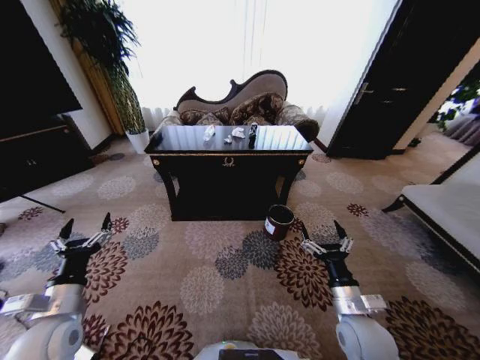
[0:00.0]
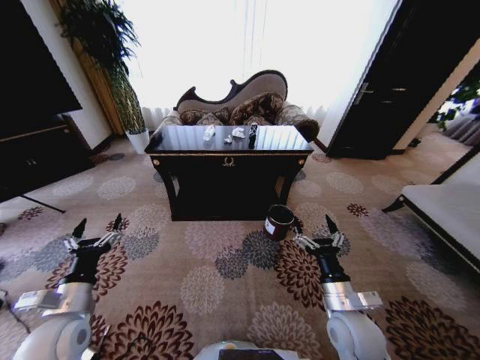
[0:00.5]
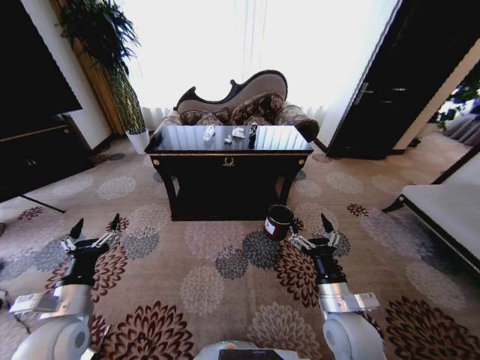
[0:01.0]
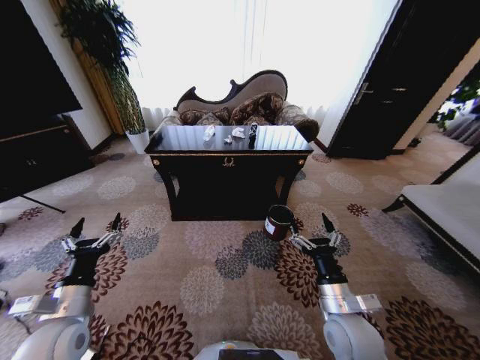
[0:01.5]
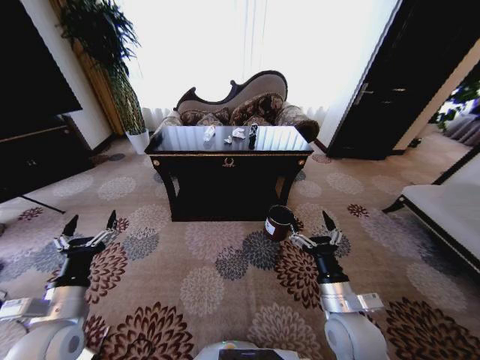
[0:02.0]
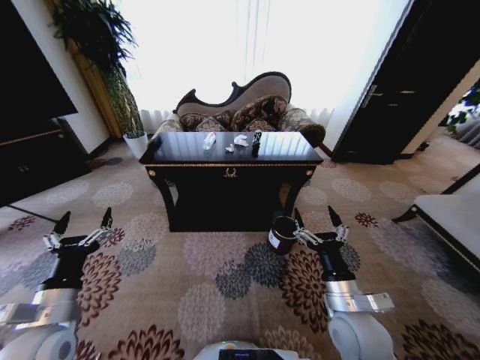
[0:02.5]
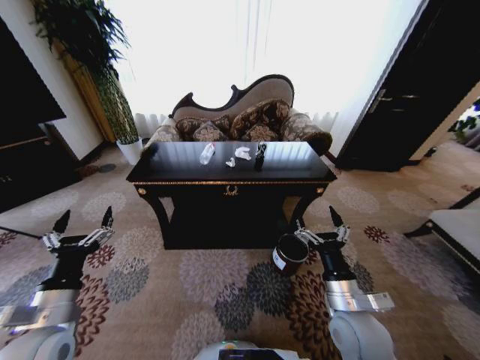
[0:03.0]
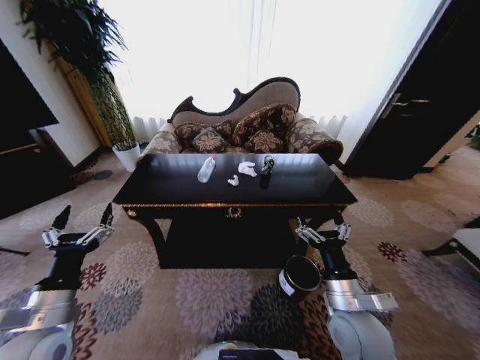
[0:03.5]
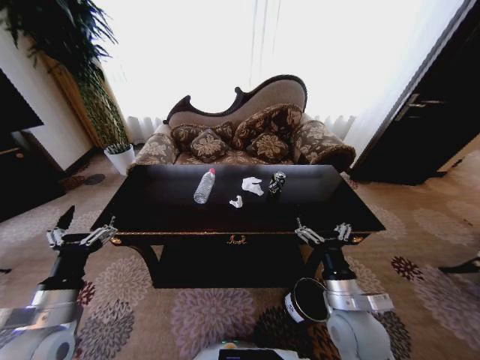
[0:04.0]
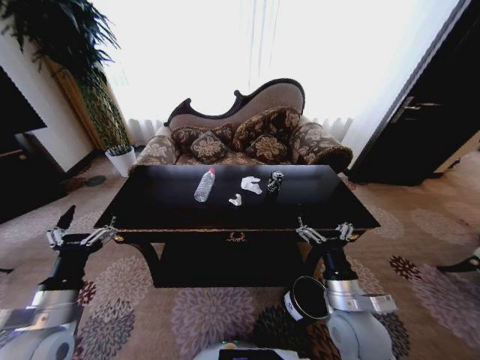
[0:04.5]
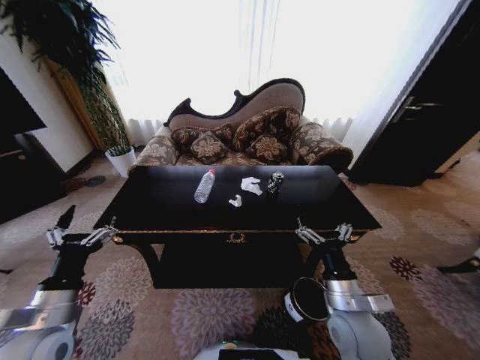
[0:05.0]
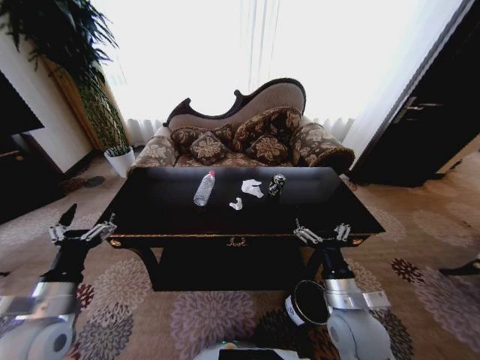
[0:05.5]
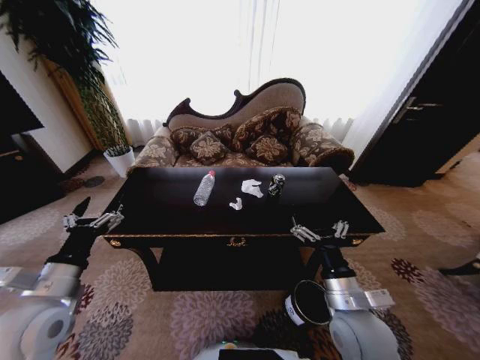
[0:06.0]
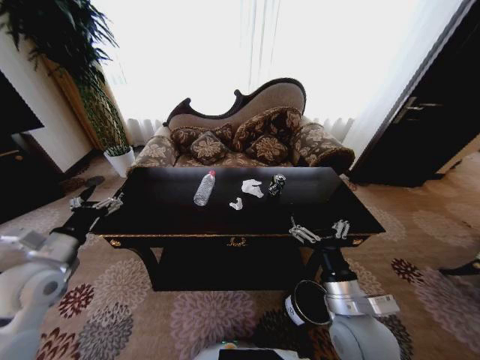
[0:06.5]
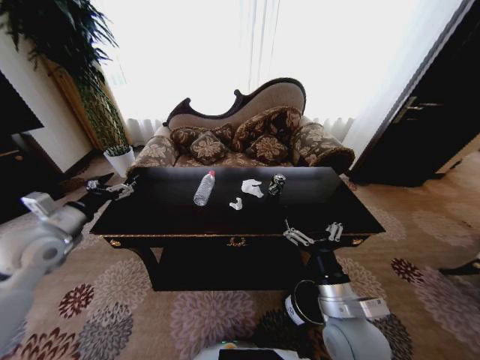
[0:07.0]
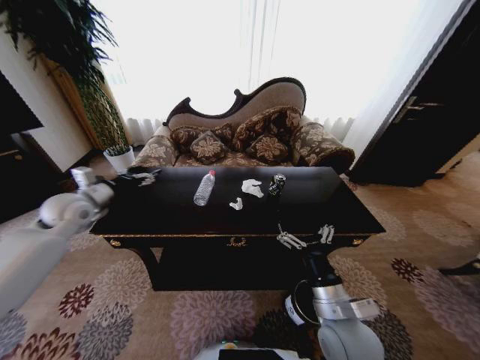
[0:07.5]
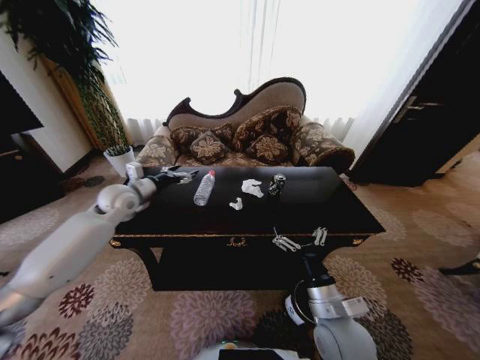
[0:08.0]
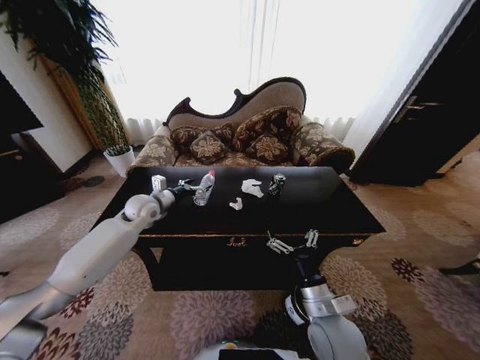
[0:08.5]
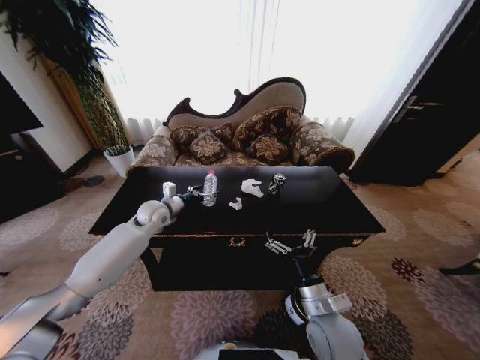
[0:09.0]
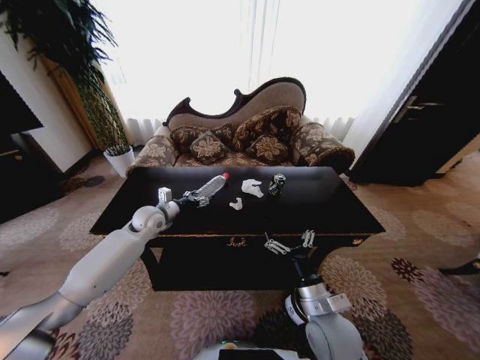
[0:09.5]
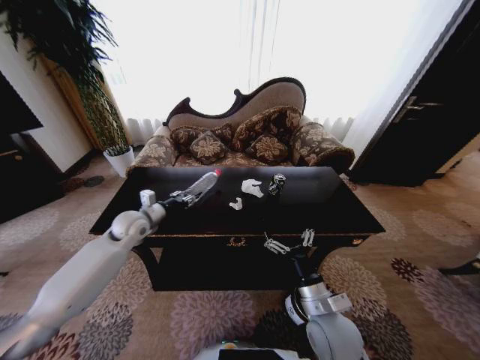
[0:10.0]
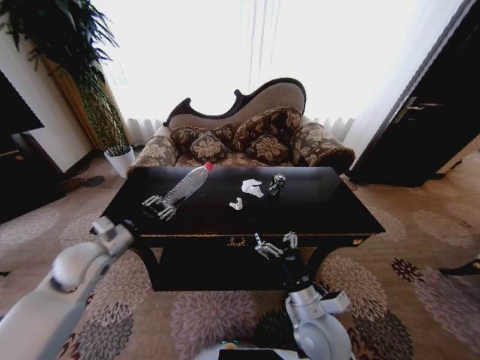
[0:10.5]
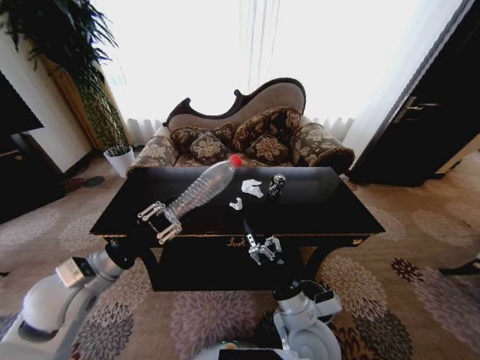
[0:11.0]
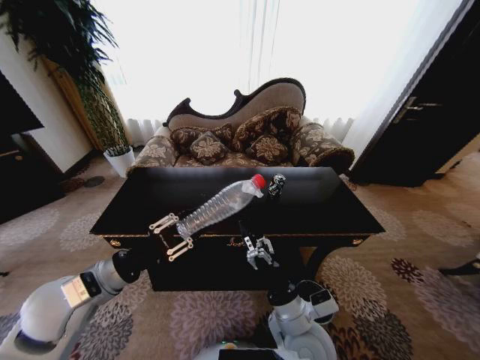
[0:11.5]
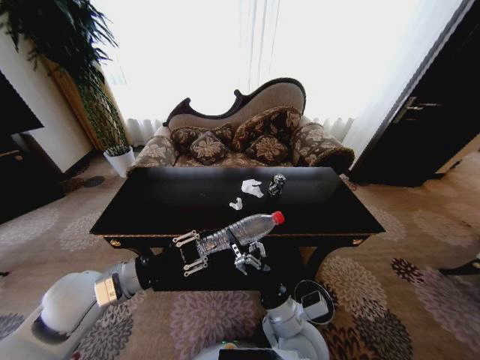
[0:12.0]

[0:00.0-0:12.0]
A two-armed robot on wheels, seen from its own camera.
Task of the whole recording: Move to the front of the table and place the trash on the table into the trash bin.
0:04.0 to 0:06.0: The grippers stay close to where they were, moving slightly.
0:06.0 to 0:08.0: The left gripper is displaced forward by some 30 cm.
0:08.0 to 0:10.0: The left gripper moves downward, roughly 10 cm, and closes its fingers.
0:10.0 to 0:12.0: The right gripper heads to the left, covering some 5 cm. The left gripper heads backward, covering approximately 20 cm.

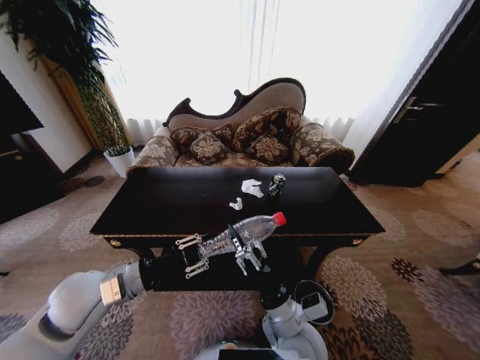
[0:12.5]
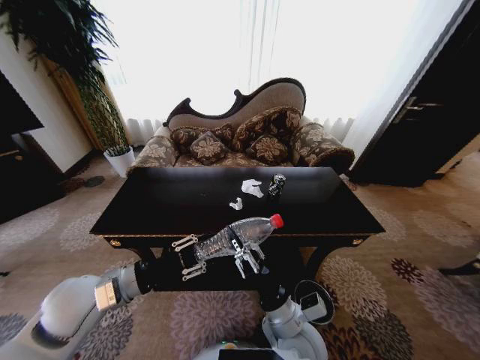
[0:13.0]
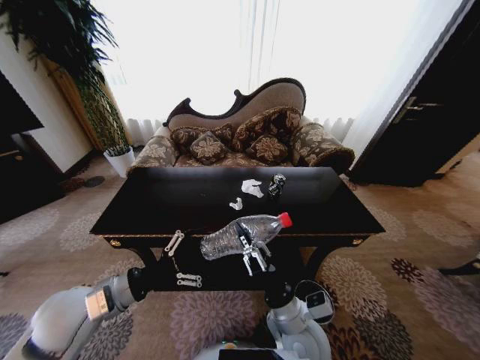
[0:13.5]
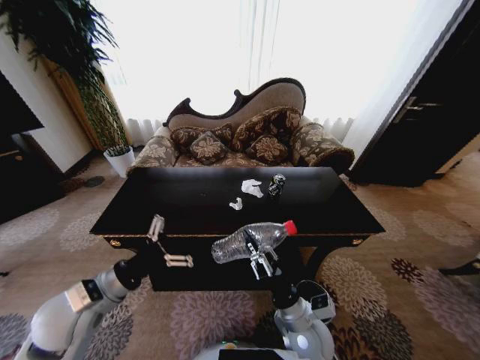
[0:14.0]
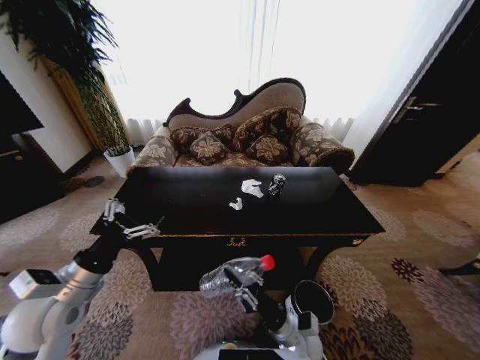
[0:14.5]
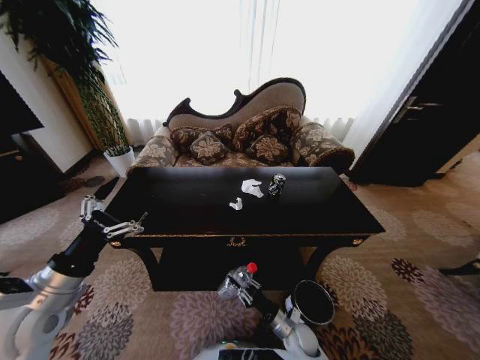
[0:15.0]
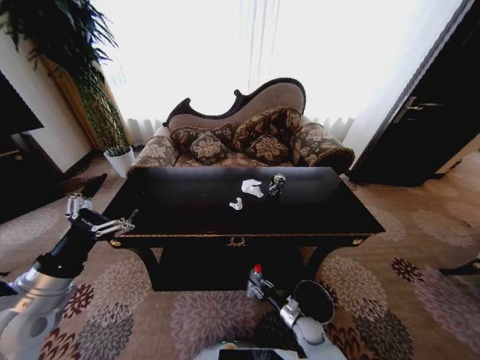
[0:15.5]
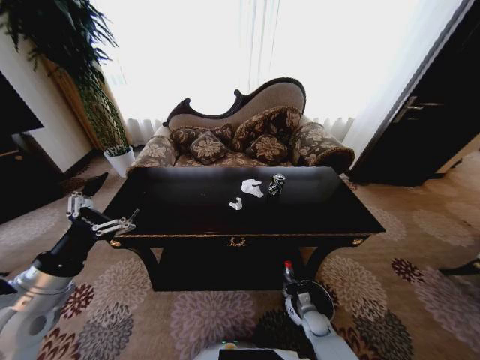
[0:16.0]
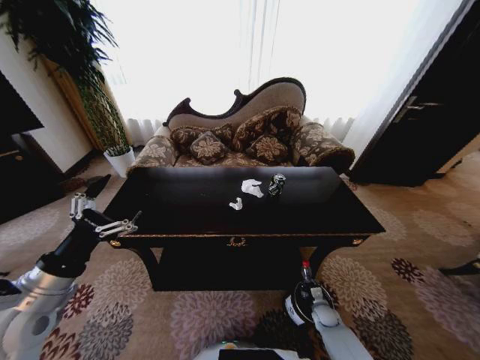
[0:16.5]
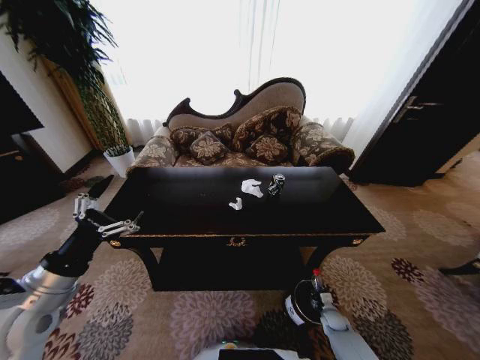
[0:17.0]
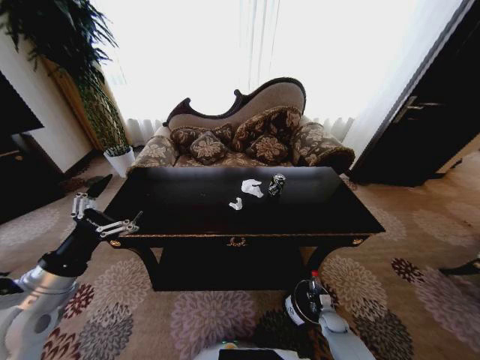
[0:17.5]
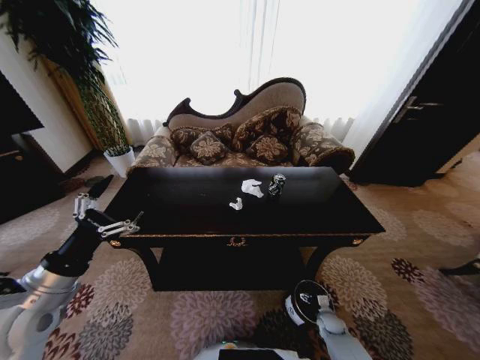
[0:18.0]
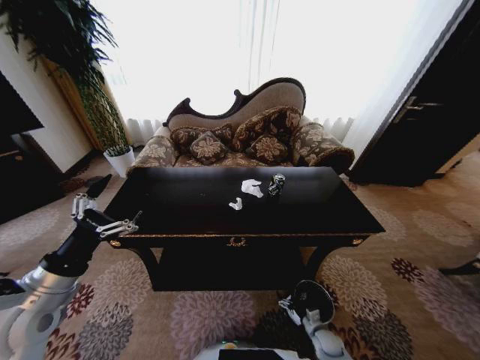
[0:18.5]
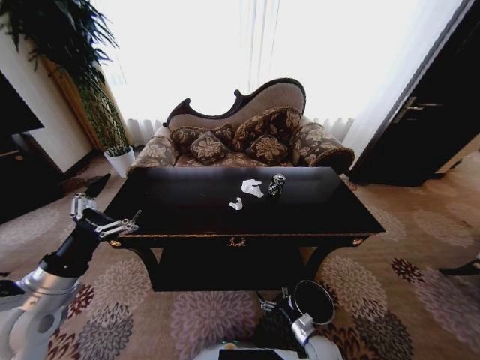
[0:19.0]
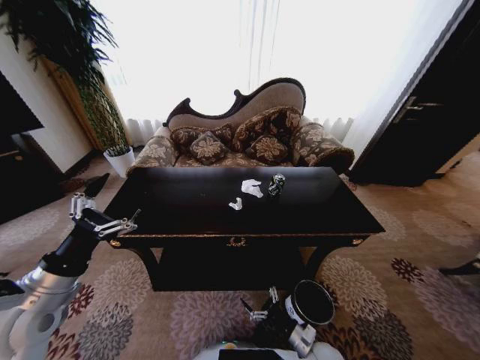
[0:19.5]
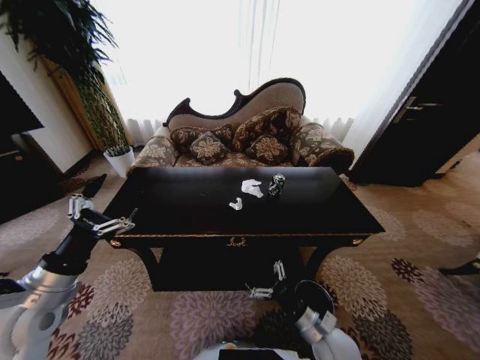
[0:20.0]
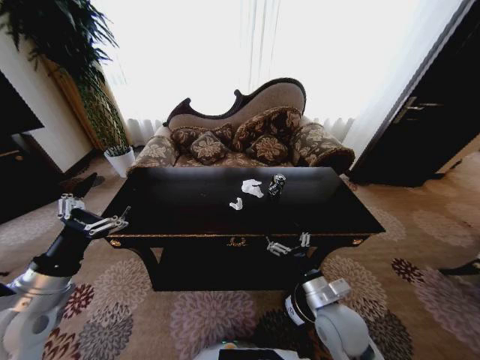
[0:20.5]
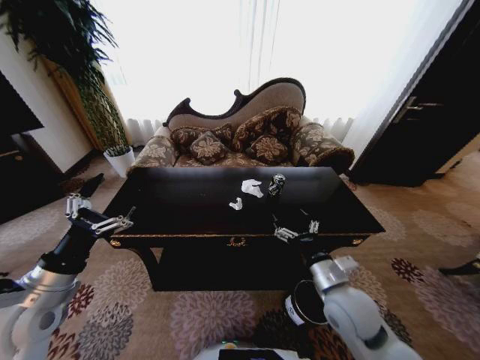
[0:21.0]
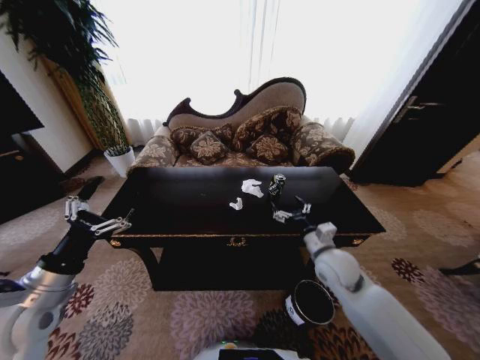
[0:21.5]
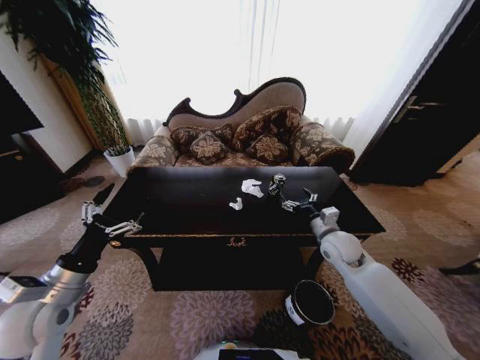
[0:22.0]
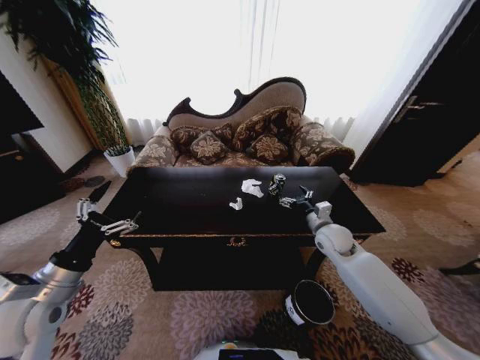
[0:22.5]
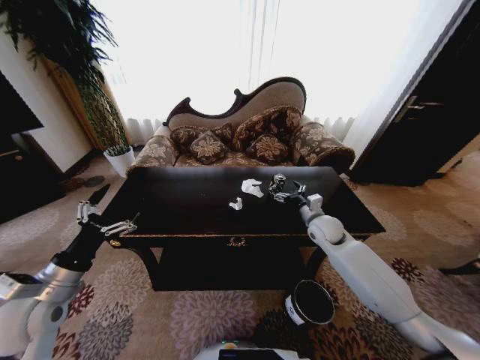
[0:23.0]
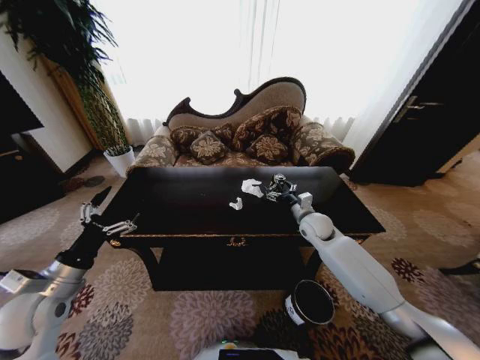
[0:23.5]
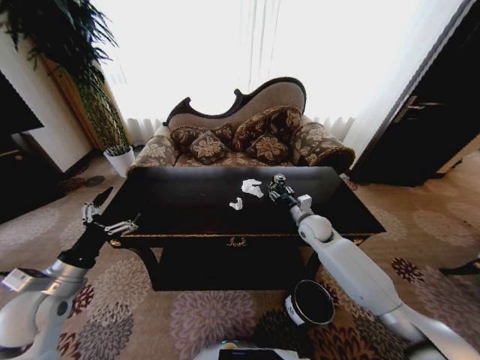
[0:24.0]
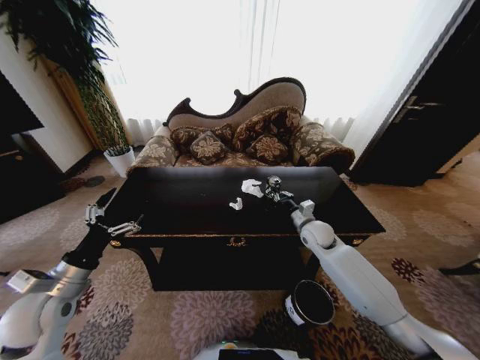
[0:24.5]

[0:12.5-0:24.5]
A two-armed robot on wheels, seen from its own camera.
Task of the whole recording: Move to the front of the table and place the trash on the table into the trash bin.
0:12.5 to 0:14.5: The left gripper moves to the left, about 5 cm, and opens its fingers; the right gripper travels downward by roughly 10 cm, and closes its fingers.
0:14.5 to 0:16.5: The right gripper travels to the right, downward and forward by roughly 30 cm.
0:16.5 to 0:18.5: The right gripper shifts roughly 10 cm backward, and opens up.
0:18.5 to 0:20.5: The right gripper goes some 30 cm upward.
0:20.5 to 0:22.5: The right gripper heads forward, covering some 20 cm.
0:22.5 to 0:24.5: The right gripper ends up about 5 cm from where it was, and closes up.

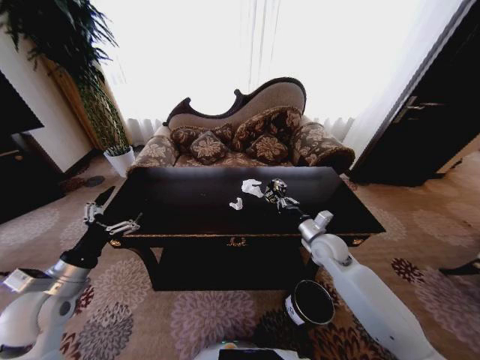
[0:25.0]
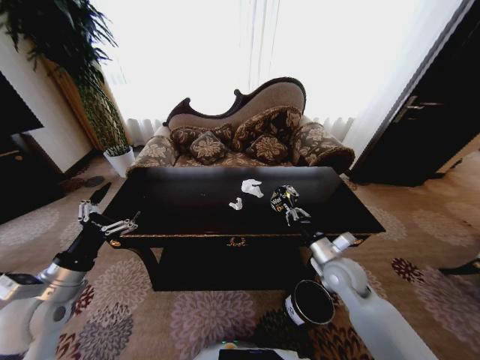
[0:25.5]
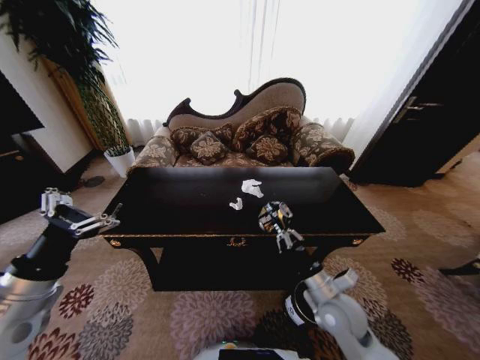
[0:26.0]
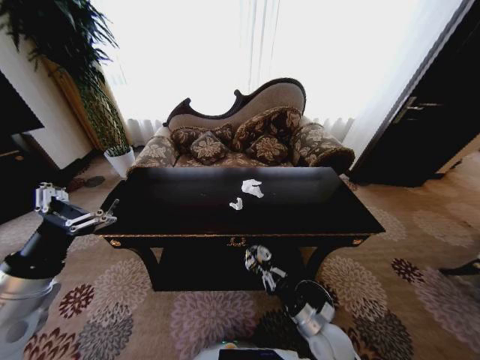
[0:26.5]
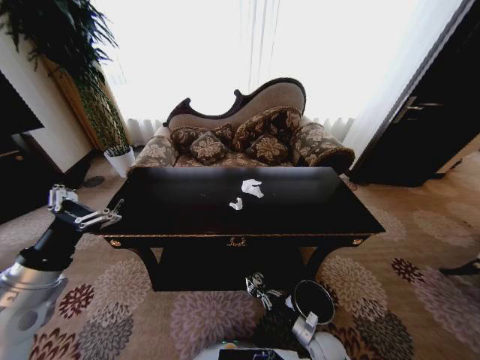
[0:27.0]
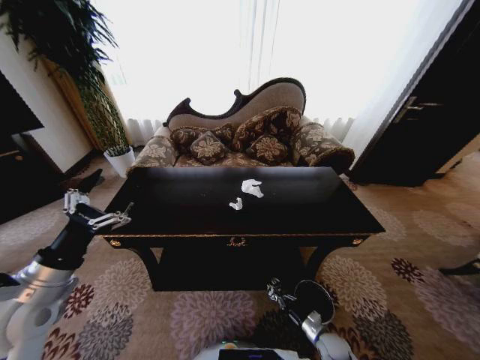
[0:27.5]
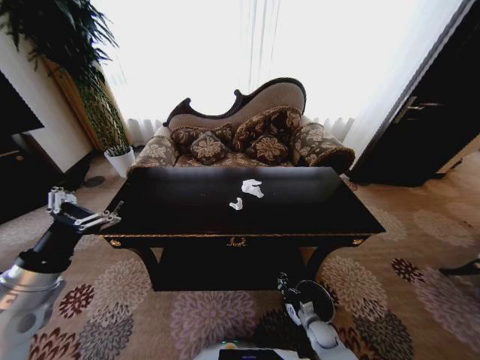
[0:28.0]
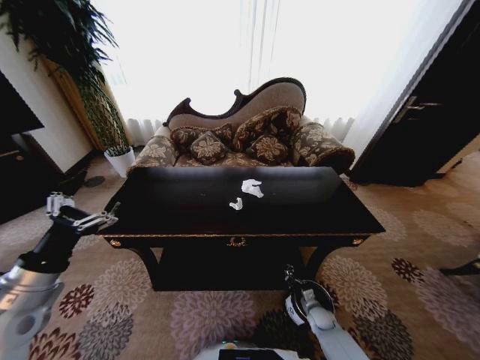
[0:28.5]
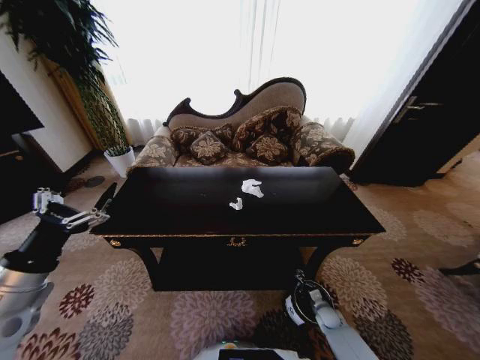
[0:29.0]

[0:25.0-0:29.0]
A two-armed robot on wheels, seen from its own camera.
Task of the whole recording: Move to the front of the table and place the trash on the table into the trash bin.
0:25.0 to 0:27.0: The left gripper shifts roughly 5 cm upward, while the right gripper heads downward and backward, covering roughly 30 cm.
0:27.0 to 0:29.0: The right gripper travels to the right, forward and downward by roughly 15 cm.
